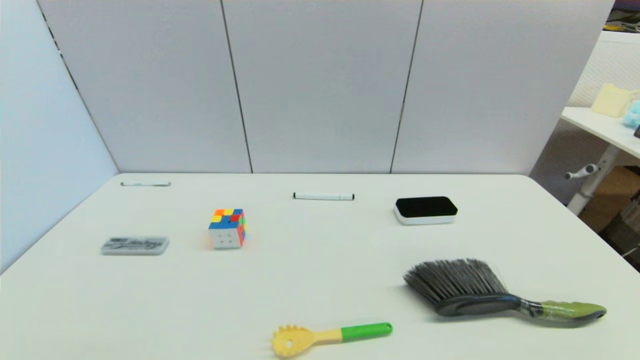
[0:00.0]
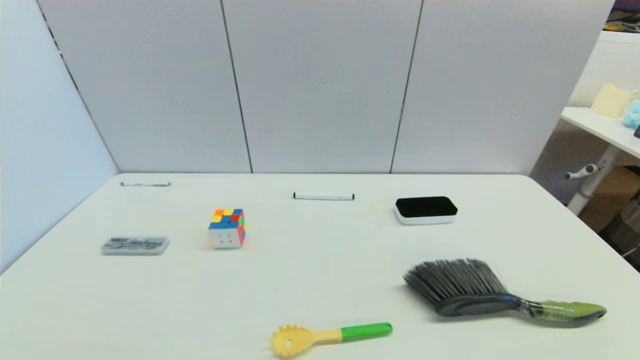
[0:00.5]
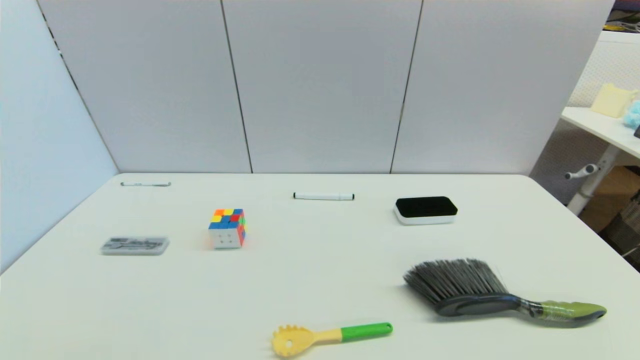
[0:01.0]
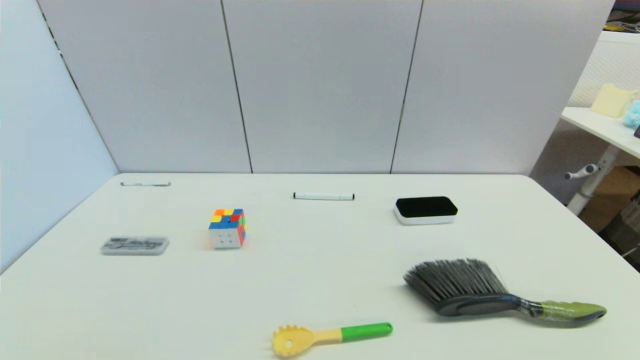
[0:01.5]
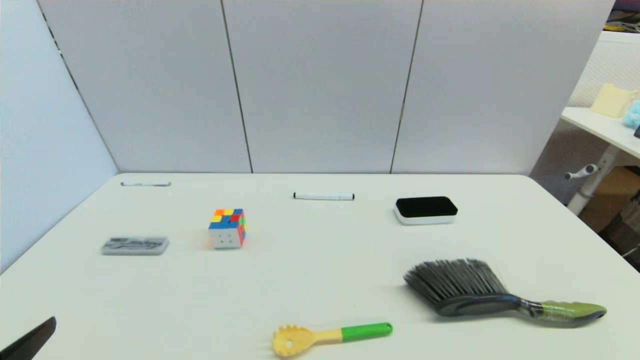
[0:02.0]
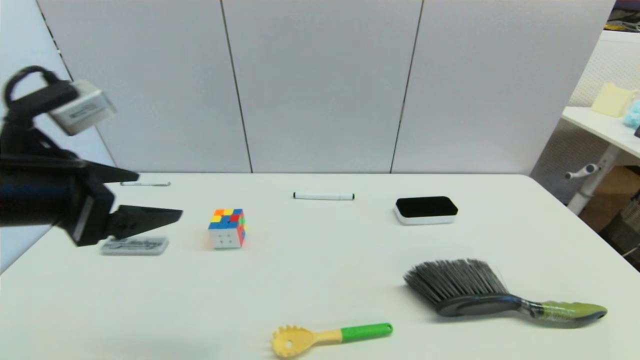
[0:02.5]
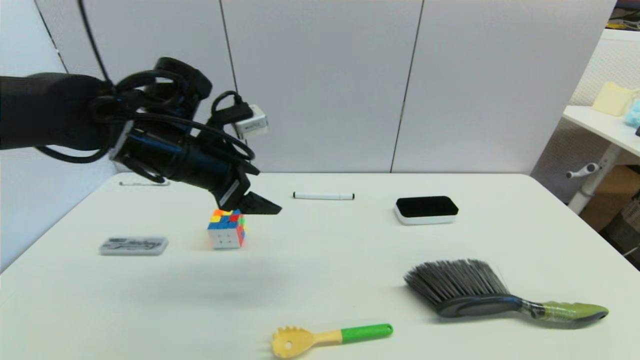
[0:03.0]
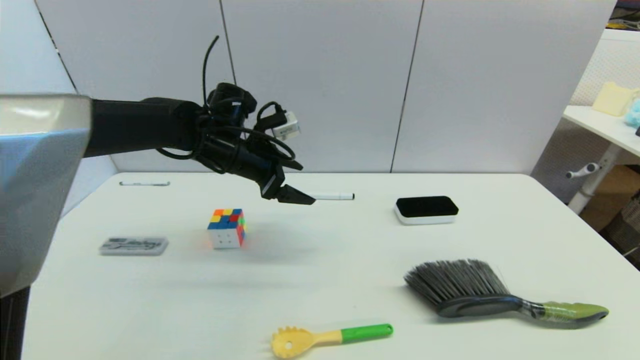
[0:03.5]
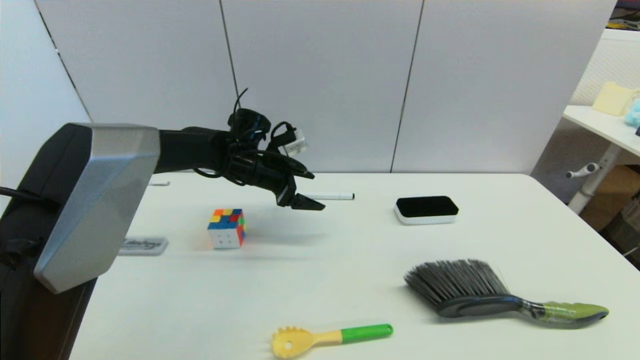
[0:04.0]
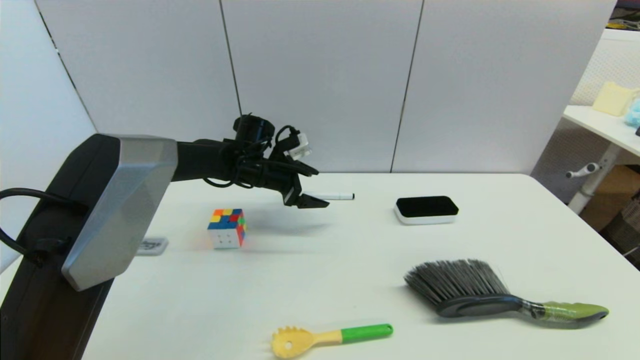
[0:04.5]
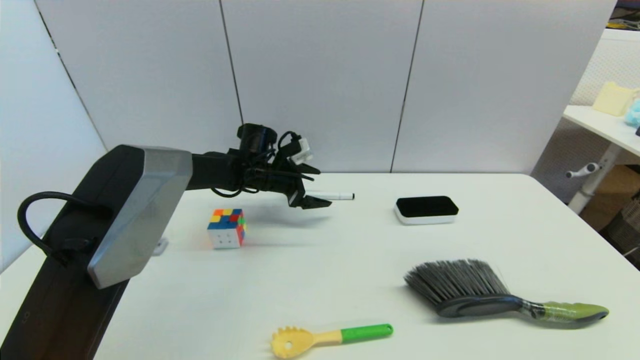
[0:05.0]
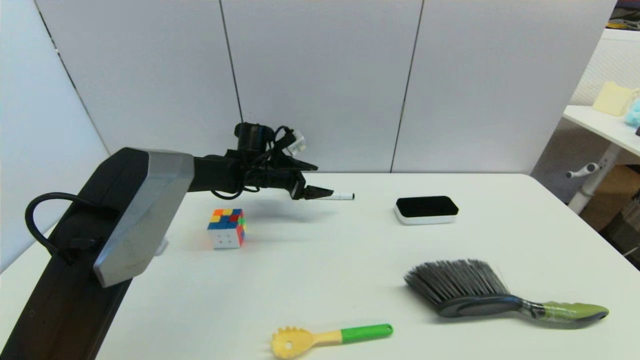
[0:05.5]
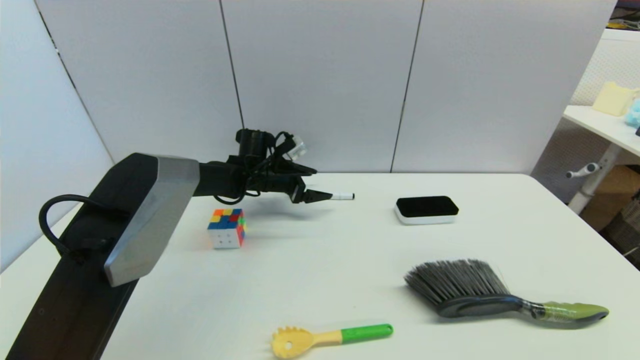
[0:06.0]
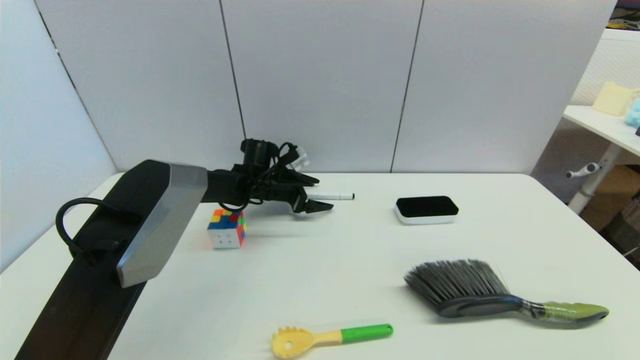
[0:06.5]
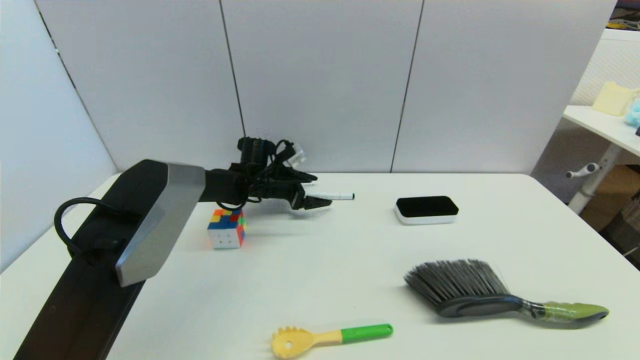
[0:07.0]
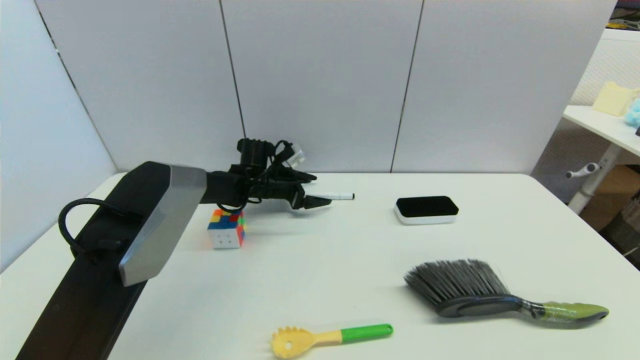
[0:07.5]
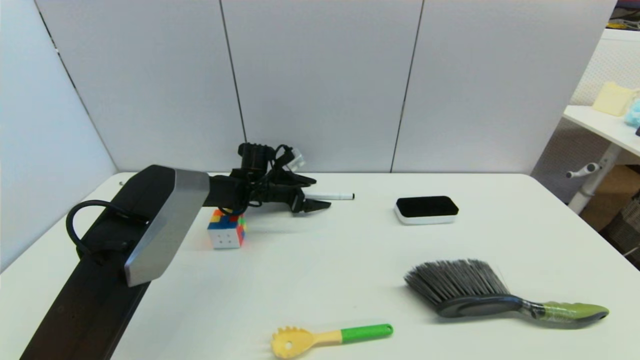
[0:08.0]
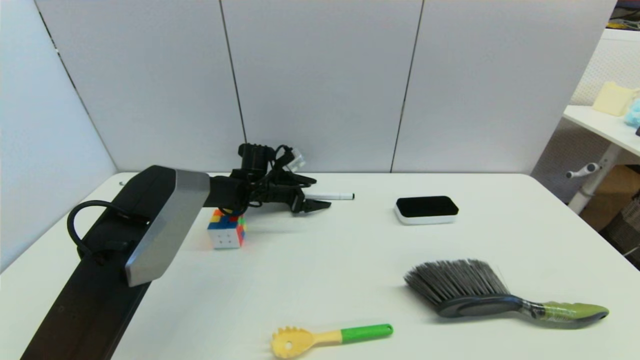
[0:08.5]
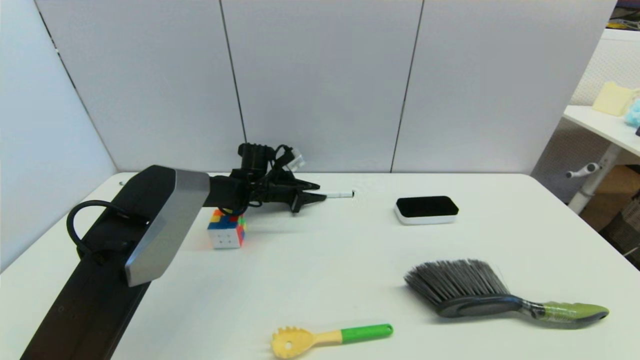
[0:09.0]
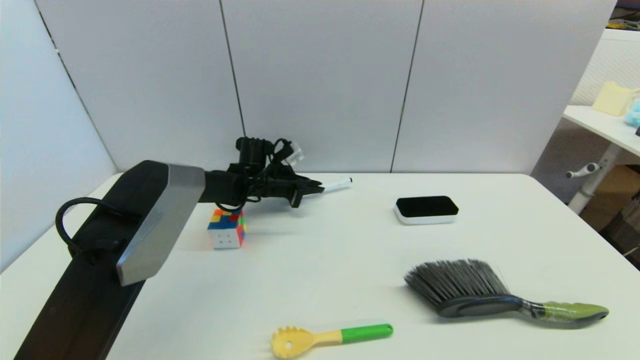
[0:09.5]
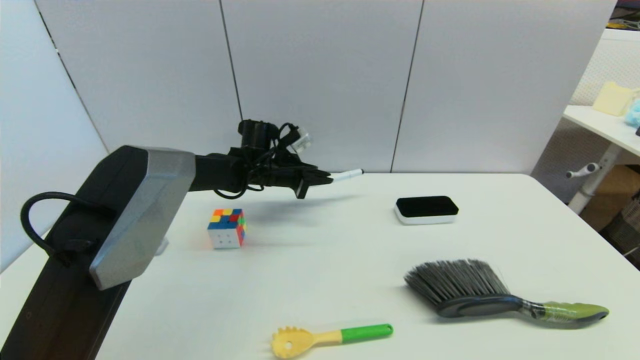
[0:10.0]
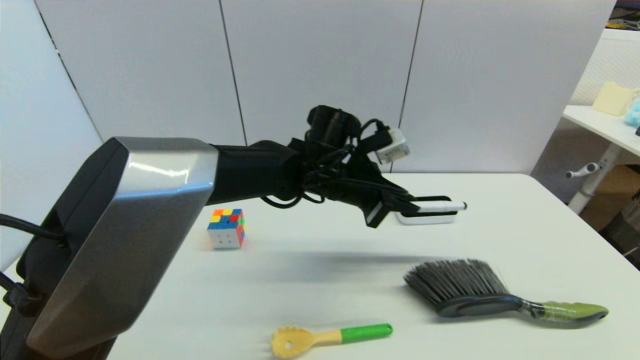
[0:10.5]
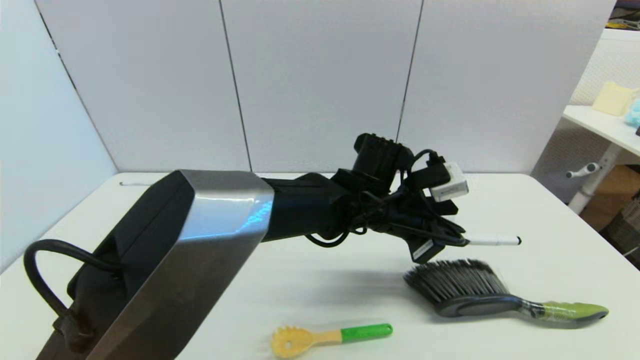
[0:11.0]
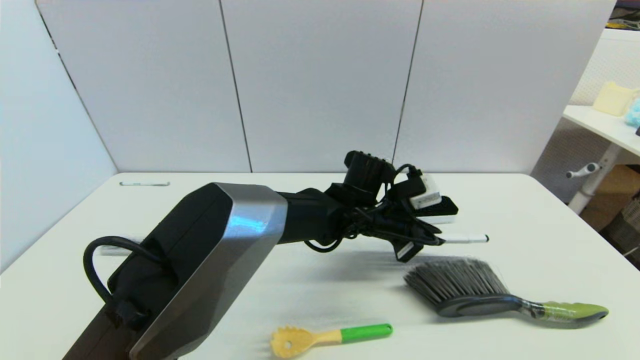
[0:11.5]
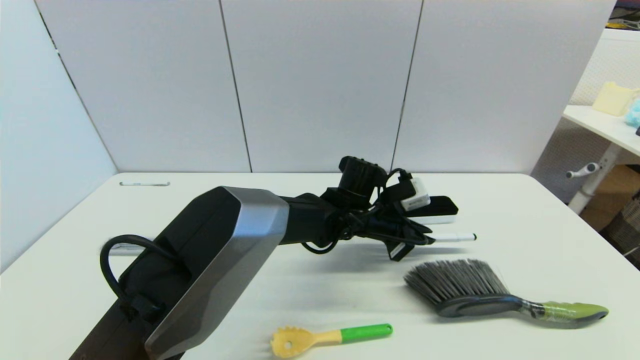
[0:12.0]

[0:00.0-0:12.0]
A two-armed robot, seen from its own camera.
Task of the whole recording: put the black marker in the designated position.
Step, 2.0 to 9.0 s: Grasp the Marker pen with left gripper.
2.0 to 4.0 s: The left gripper moves forward and to the right, roughly 40 cm.
4.0 to 6.0 s: The left gripper shifts approximately 5 cm downward and forward.
6.0 to 8.0 s: The grippers make only small movements.
8.0 to 10.0 s: The left gripper travels upward by about 5 cm, and closes up.
10.0 to 12.0 s: The left gripper travels to the right and backward by roughly 20 cm.

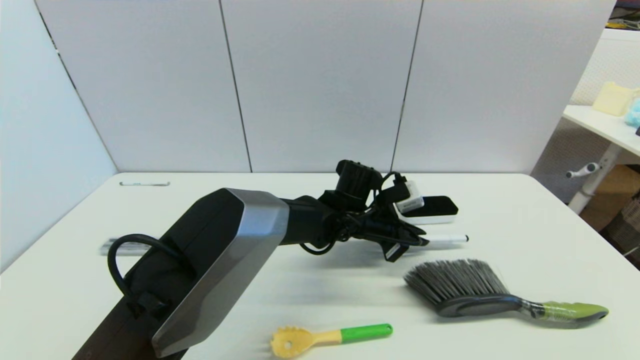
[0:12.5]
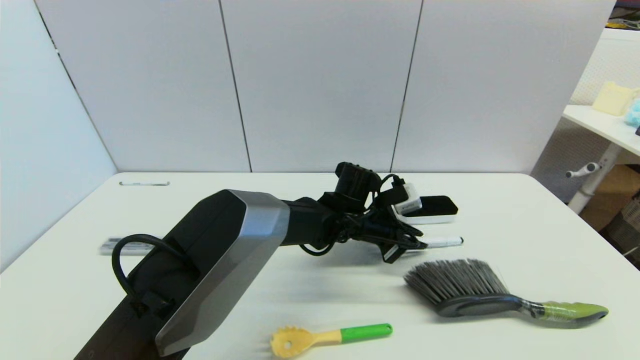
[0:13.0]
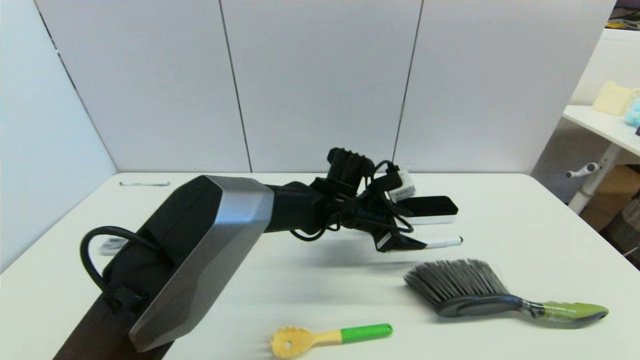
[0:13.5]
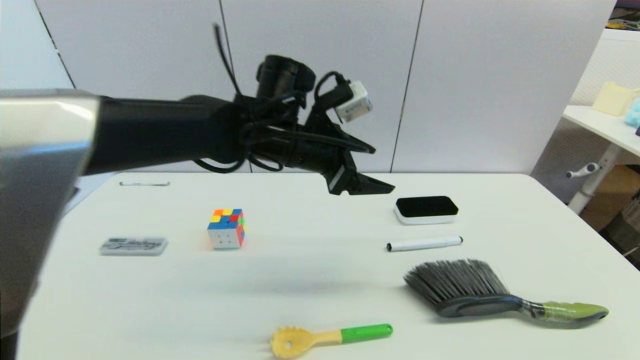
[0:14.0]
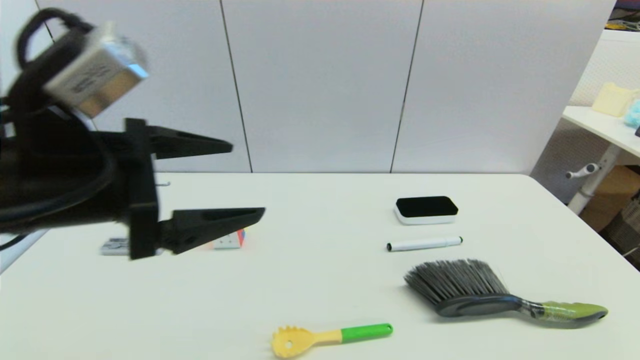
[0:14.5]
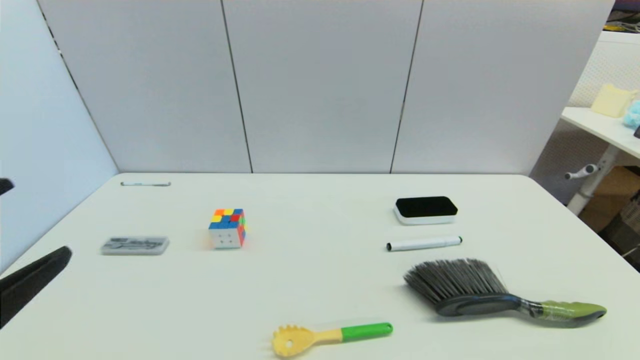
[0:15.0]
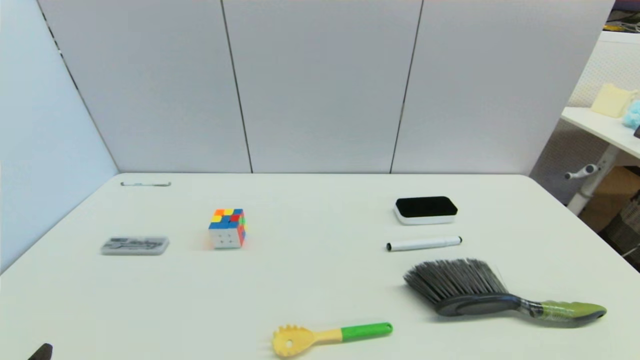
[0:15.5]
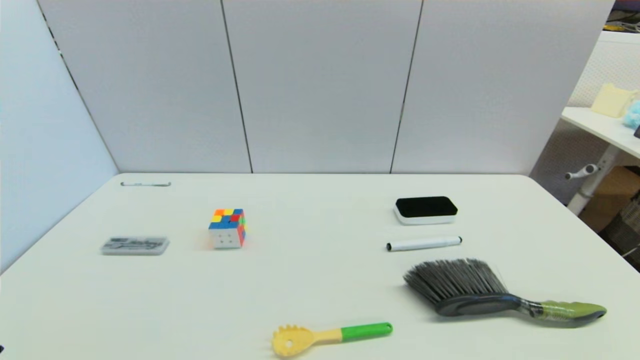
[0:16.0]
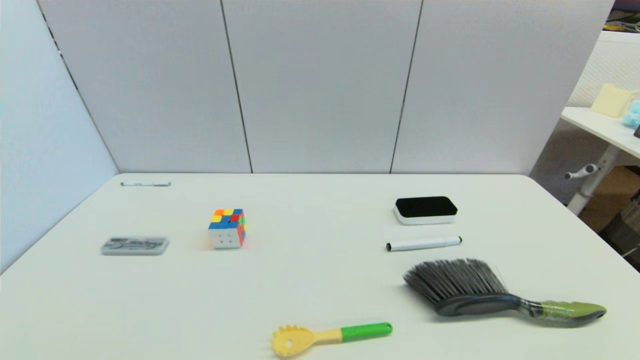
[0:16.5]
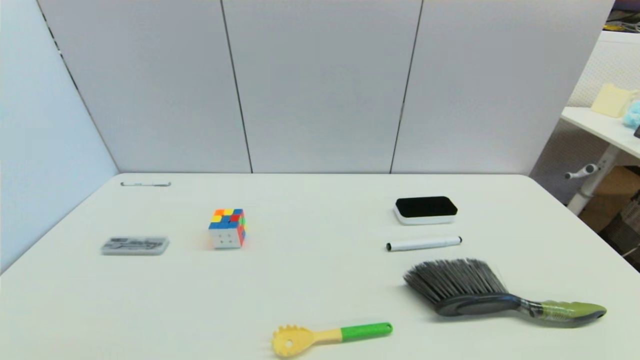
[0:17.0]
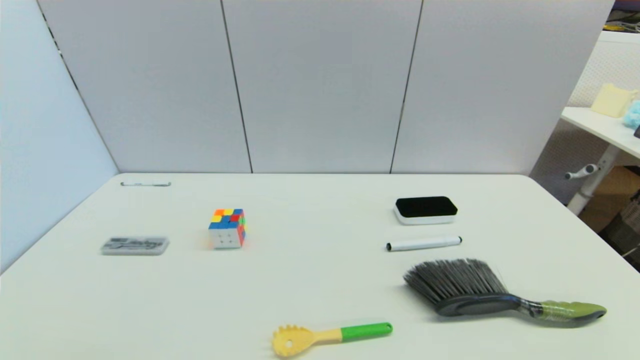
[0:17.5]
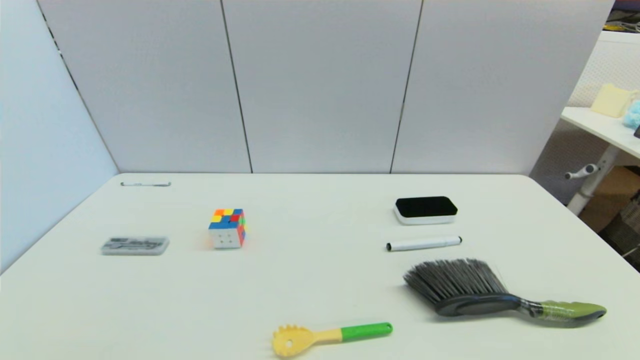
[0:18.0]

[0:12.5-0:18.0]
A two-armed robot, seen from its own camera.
Task of the whole recording: put the black marker in the designated position.
12.5 to 14.5 s: The left gripper moves to the left, backward and upward, approximately 40 cm, and opens up.
14.5 to 16.0 s: The left gripper travels downward, backward and to the left by approximately 30 cm.

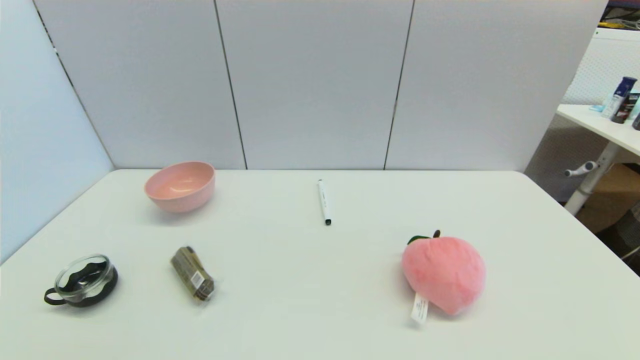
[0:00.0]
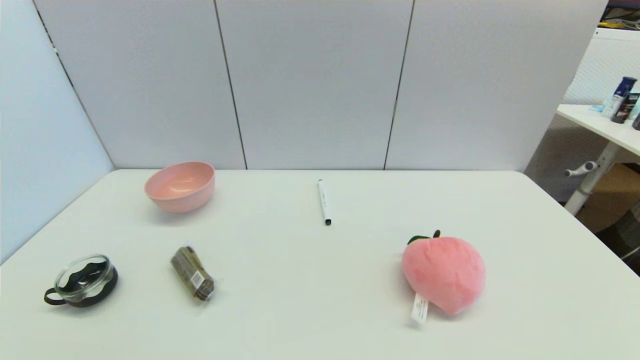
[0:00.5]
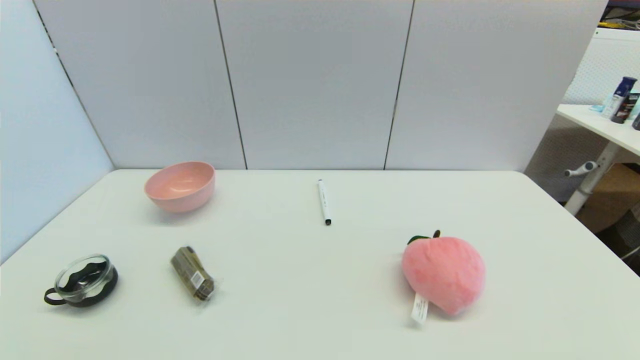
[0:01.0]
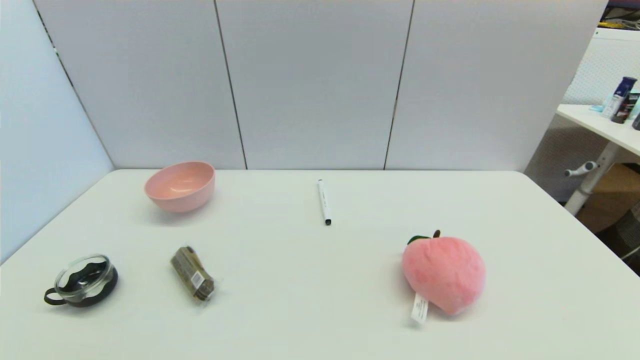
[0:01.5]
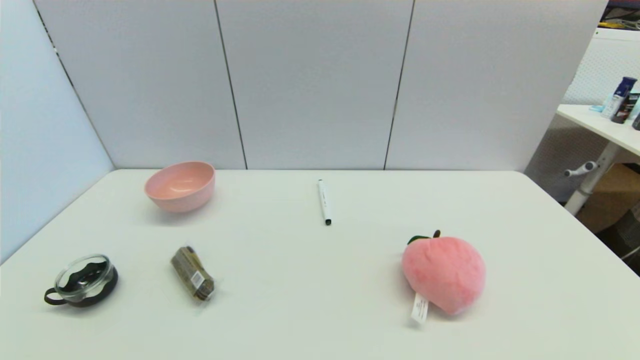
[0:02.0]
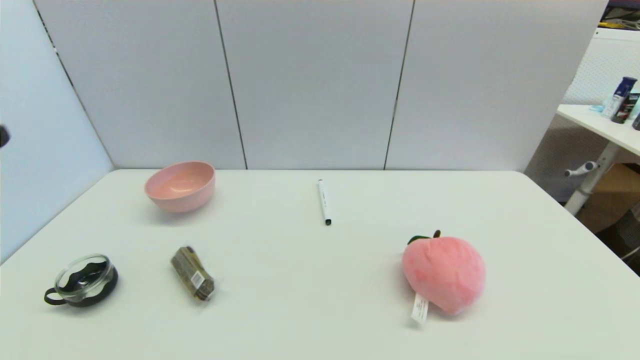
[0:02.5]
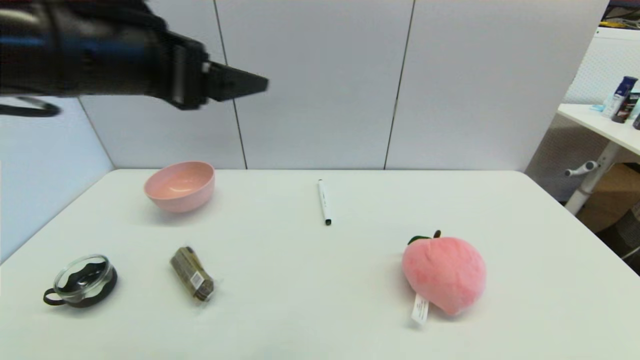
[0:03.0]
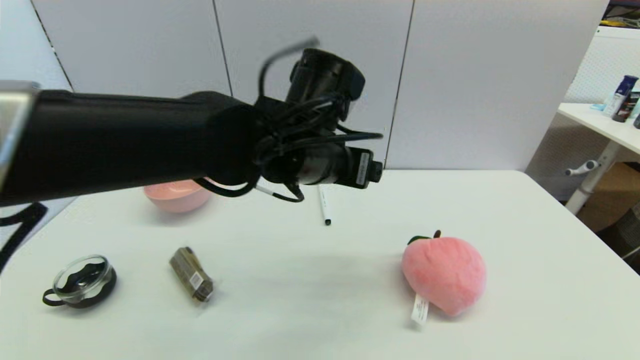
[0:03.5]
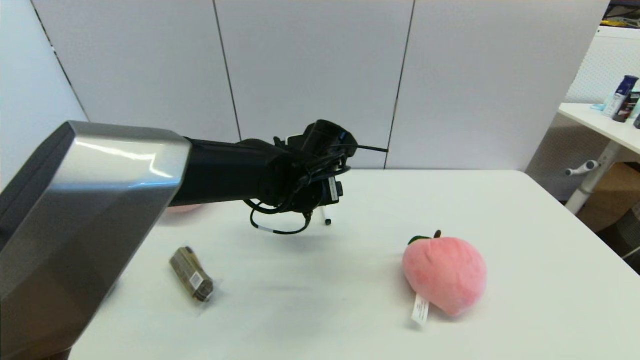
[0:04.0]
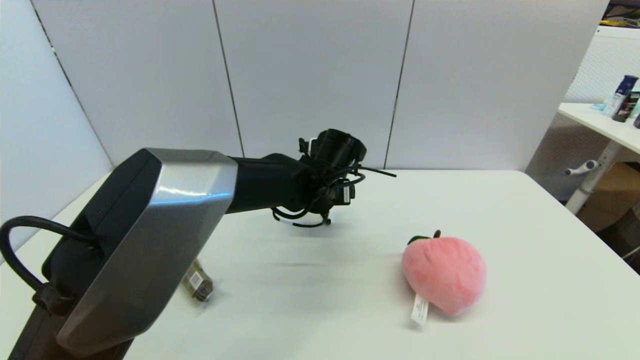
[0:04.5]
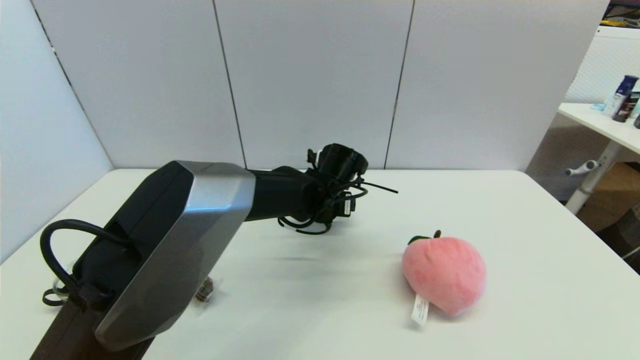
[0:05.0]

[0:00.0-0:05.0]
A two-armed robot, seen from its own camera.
Task of the whole recording: put the black marker in the designated position.
2.5 to 5.0 s: The left gripper shifts about 50 cm forward, to the right and downward.
